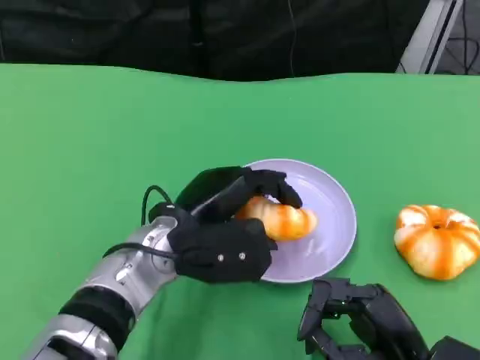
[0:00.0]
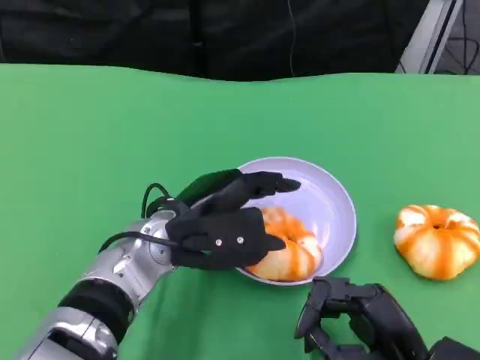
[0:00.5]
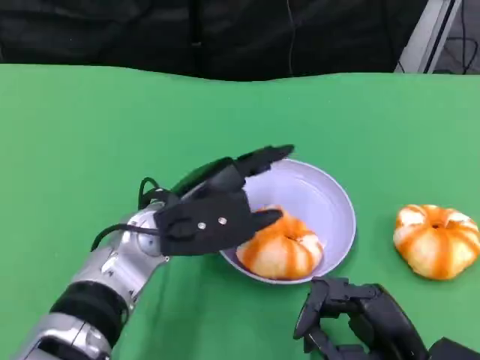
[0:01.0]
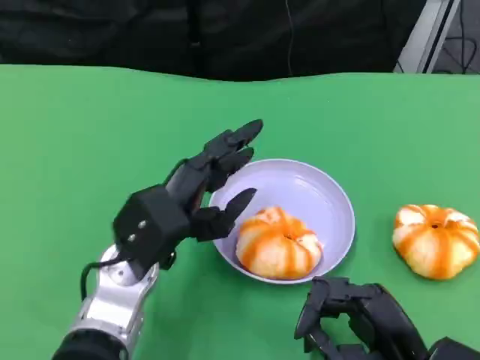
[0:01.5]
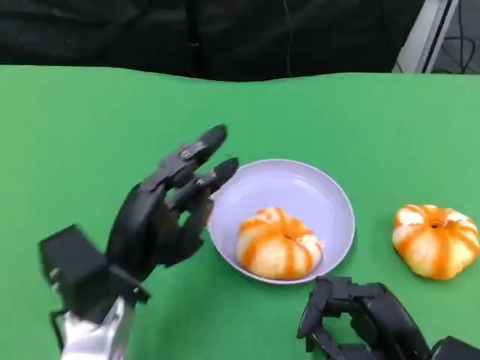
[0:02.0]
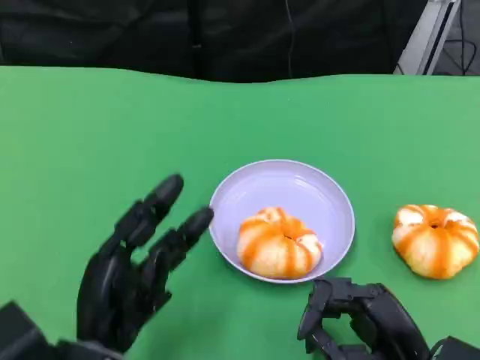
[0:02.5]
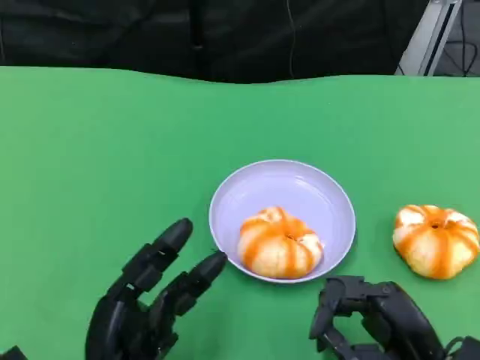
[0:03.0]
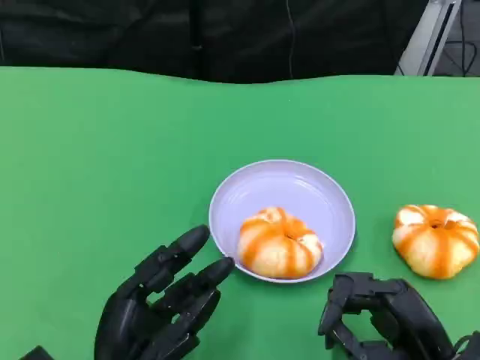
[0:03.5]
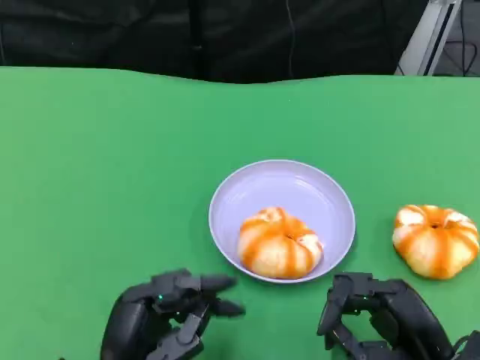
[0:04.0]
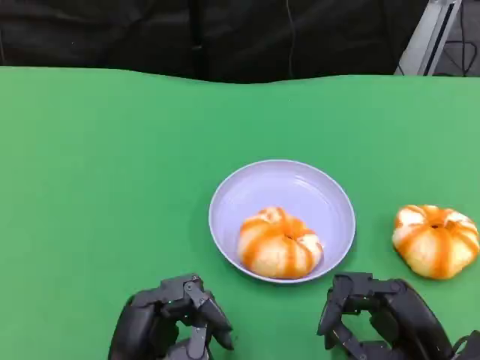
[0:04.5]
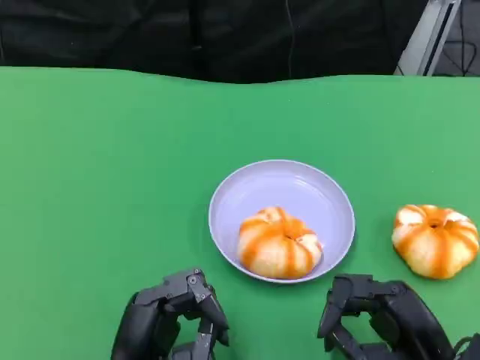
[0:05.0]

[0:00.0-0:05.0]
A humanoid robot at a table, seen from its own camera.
Task of the whole recording: Grasp the bread from the table and place it into the plate.
0:00.0 to 0:02.5: The left hand shifts roughly 15 cm backward and to the left.
0:02.5 to 0:05.0: The hands stay close to where they were, moving slightly.

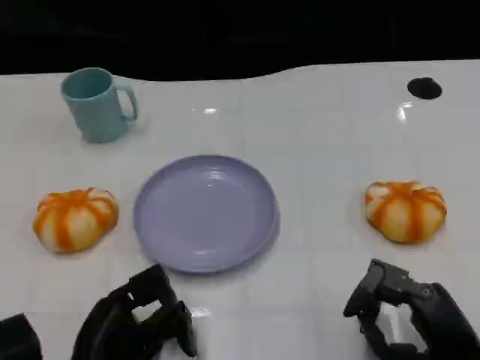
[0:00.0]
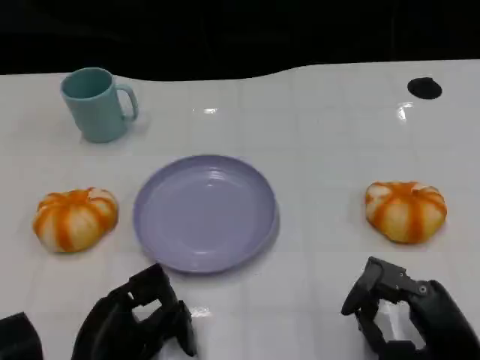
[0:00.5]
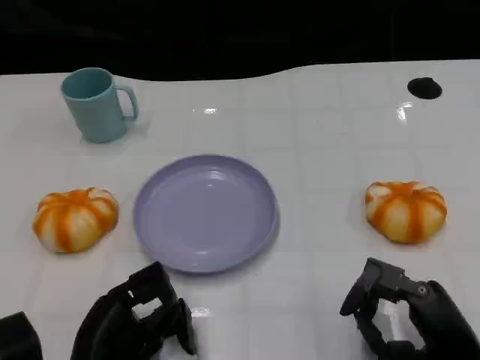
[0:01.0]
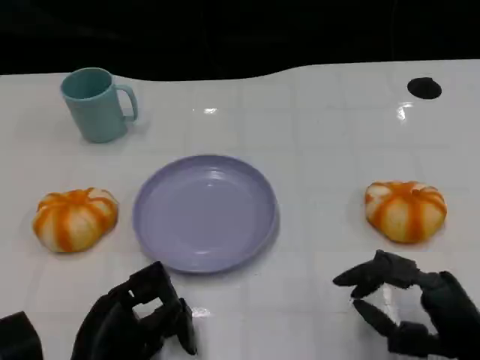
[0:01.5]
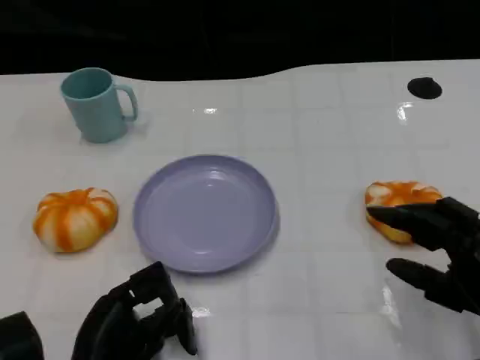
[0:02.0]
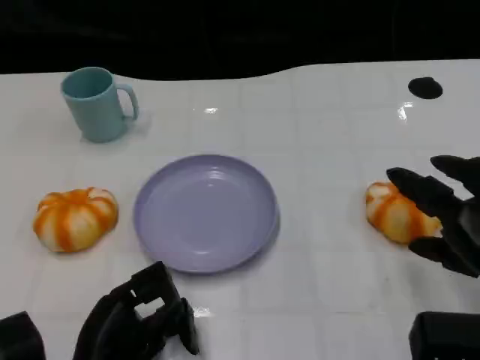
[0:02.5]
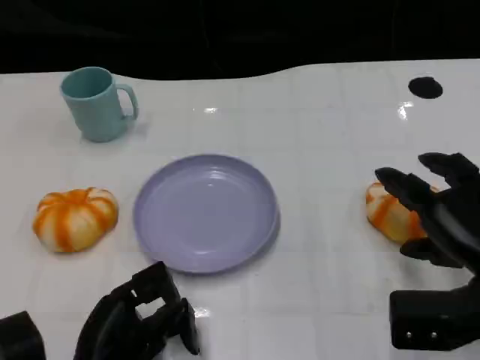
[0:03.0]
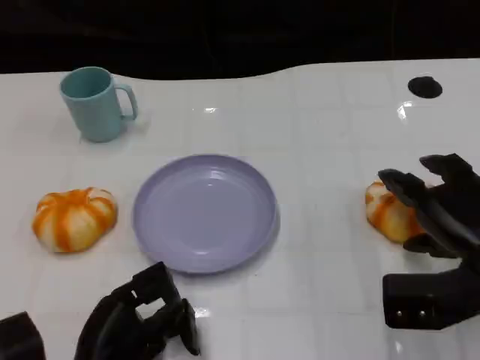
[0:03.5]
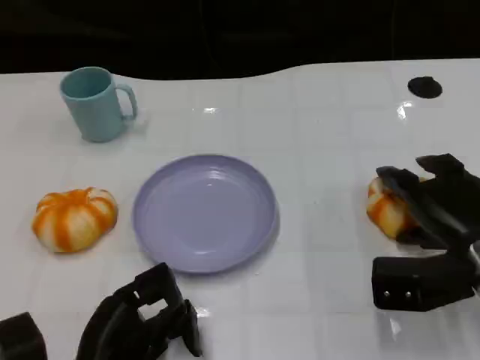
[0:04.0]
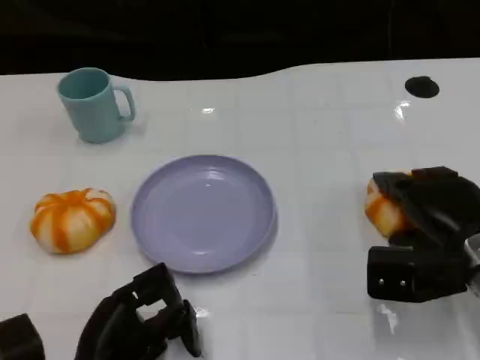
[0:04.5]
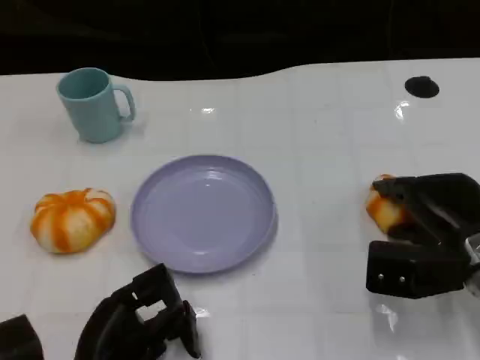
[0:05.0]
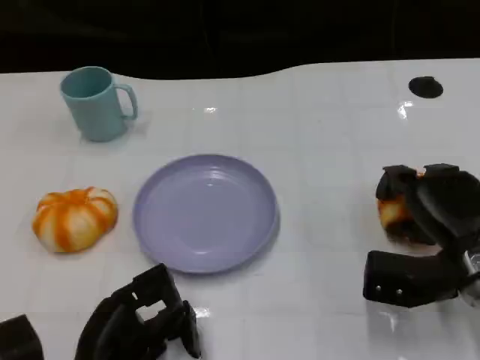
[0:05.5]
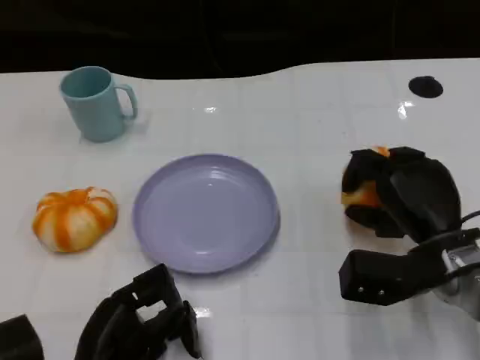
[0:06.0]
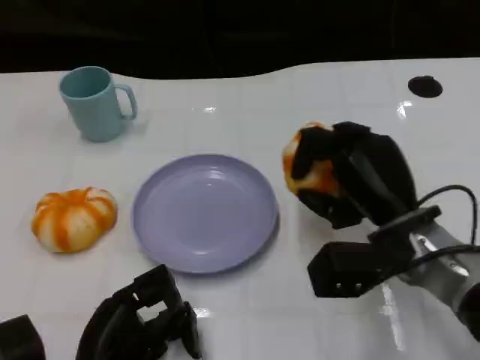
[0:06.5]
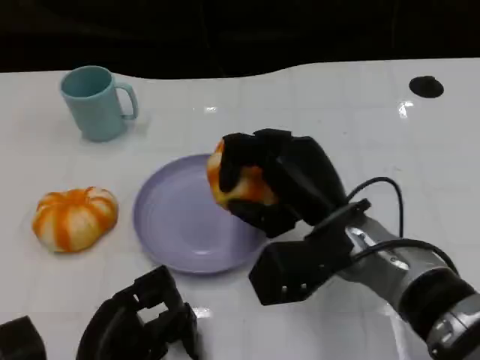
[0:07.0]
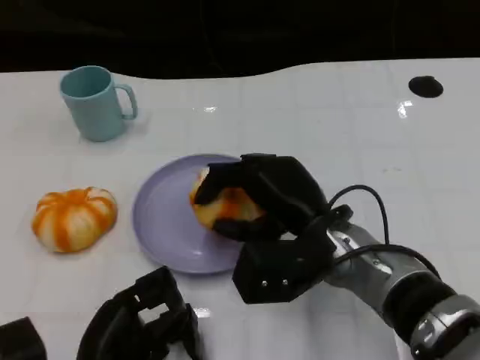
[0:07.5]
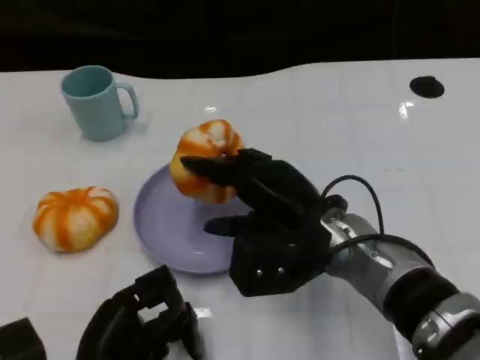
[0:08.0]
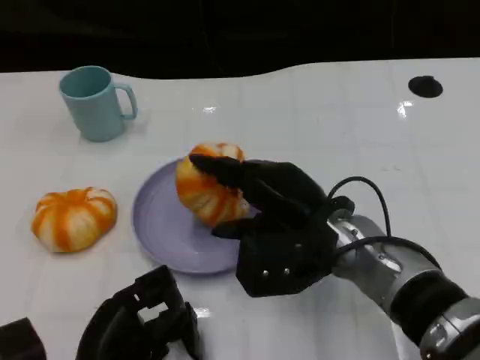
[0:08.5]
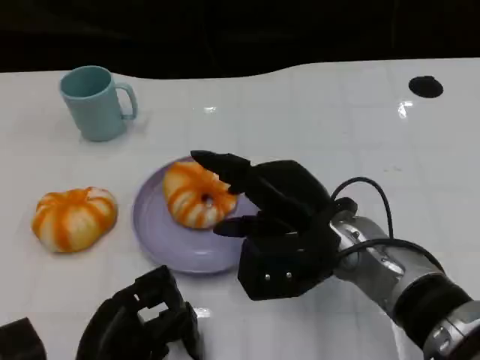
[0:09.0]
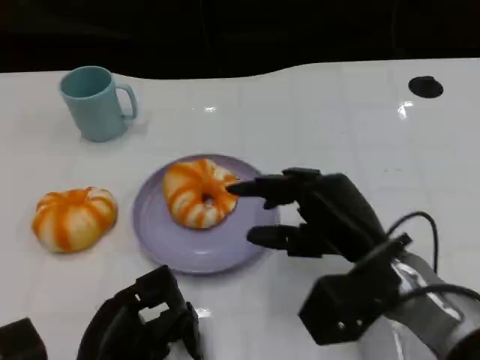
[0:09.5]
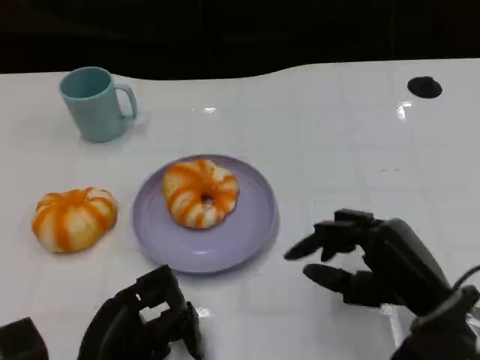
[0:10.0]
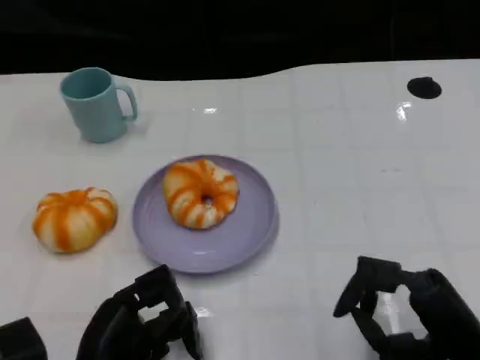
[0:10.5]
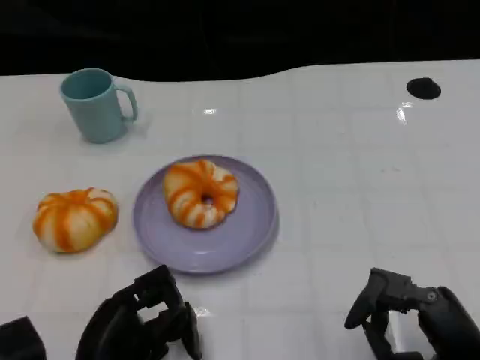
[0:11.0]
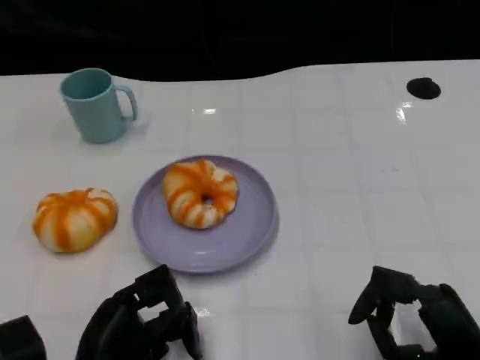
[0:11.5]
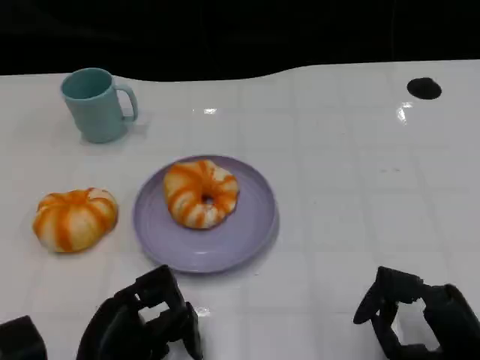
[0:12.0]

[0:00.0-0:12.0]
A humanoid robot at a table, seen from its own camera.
Task of the whole recording: Grasp the bread from the table and place it into the plate.
0:00.0 to 0:02.0: The right hand moves about 5 cm.
0:02.0 to 0:04.0: The right hand is displaced forward by some 10 cm.
0:06.0 to 0:08.0: The right hand travels to the left by some 10 cm.
0:08.0 to 0:10.0: The right hand goes approximately 15 cm to the right and backward.
0:10.0 to 0:12.0: The right hand shifts roughly 5 cm backward.

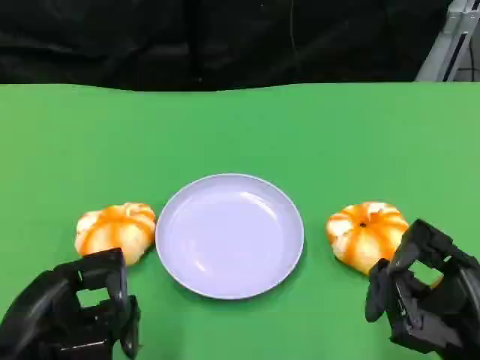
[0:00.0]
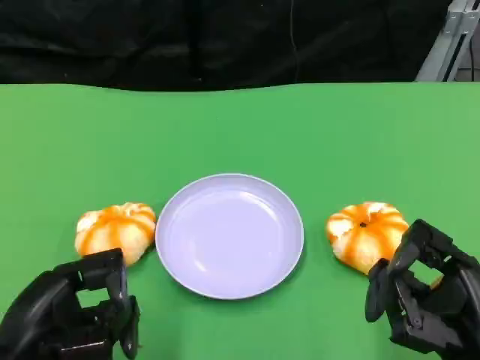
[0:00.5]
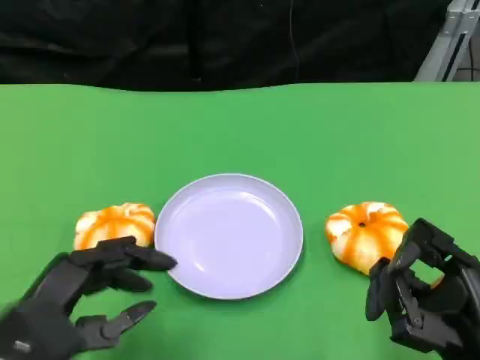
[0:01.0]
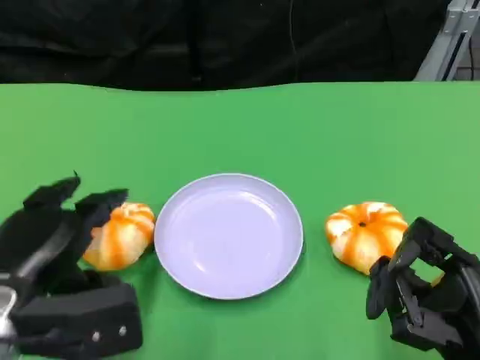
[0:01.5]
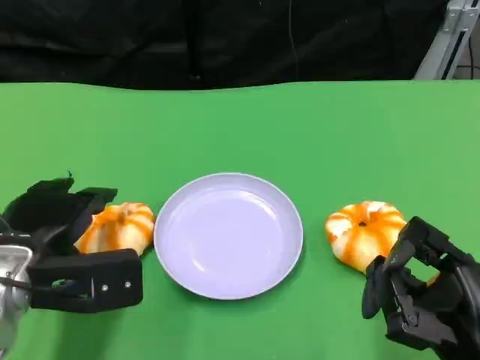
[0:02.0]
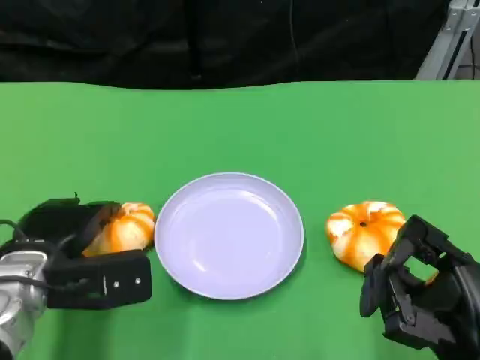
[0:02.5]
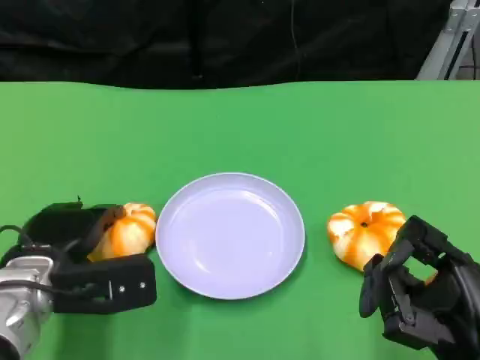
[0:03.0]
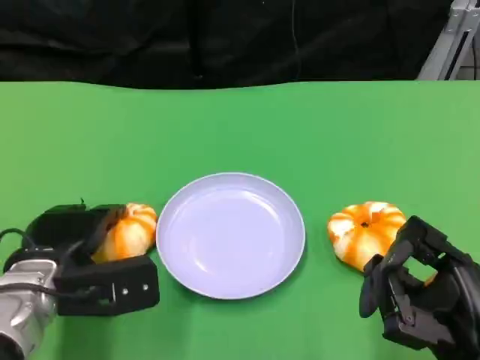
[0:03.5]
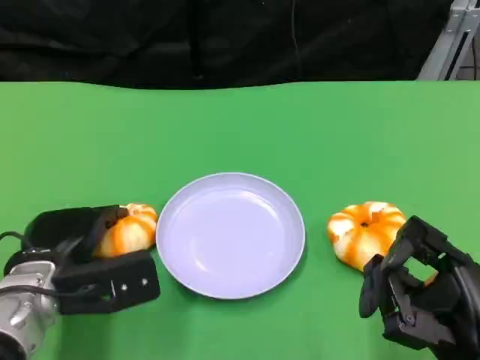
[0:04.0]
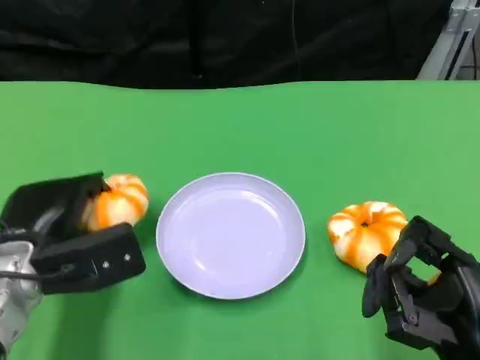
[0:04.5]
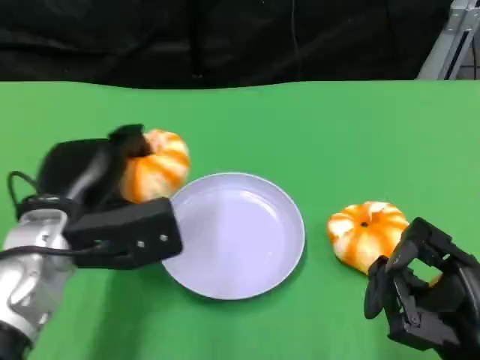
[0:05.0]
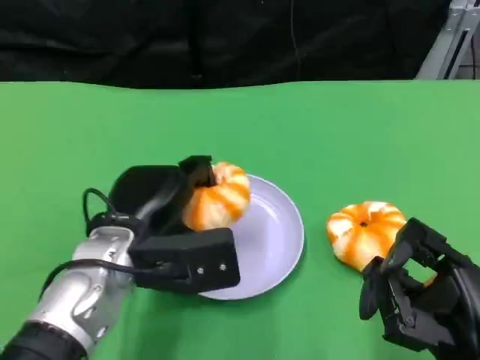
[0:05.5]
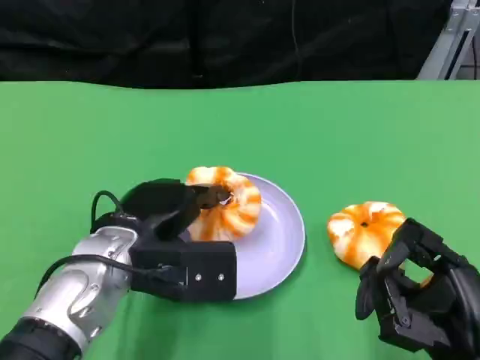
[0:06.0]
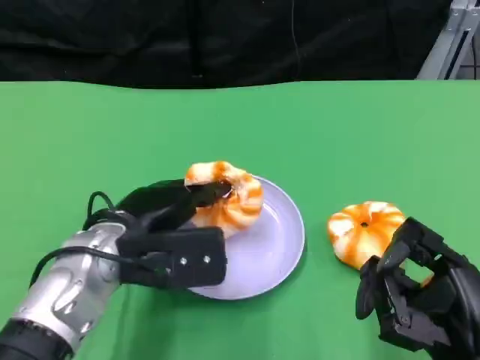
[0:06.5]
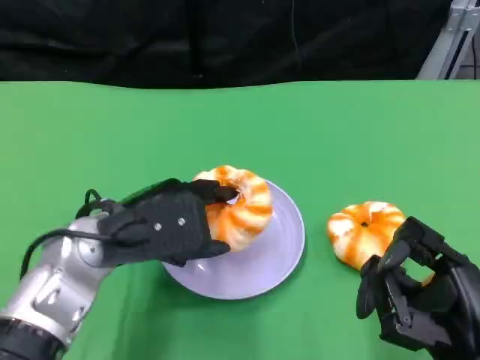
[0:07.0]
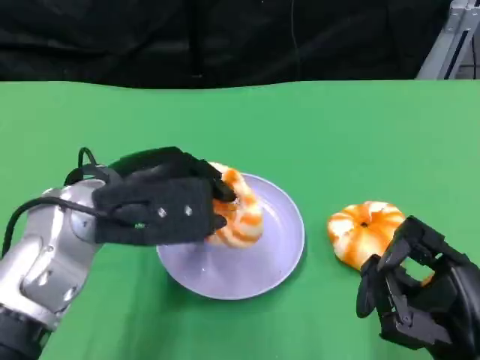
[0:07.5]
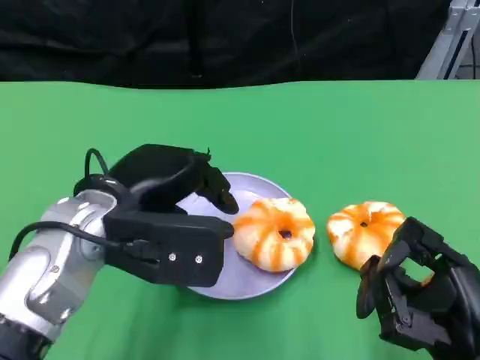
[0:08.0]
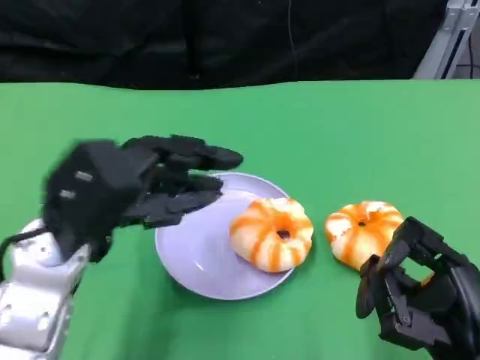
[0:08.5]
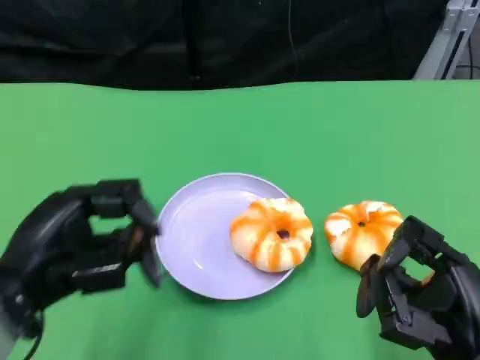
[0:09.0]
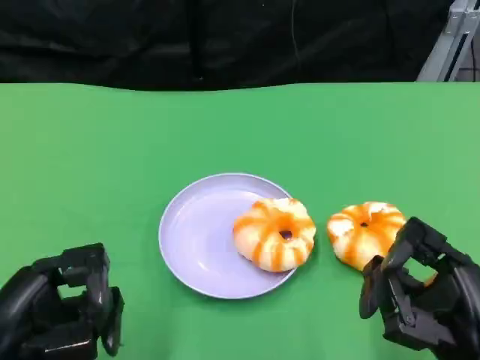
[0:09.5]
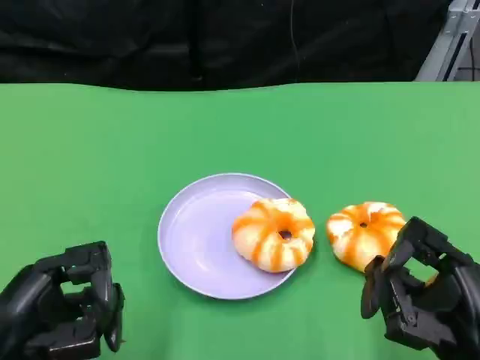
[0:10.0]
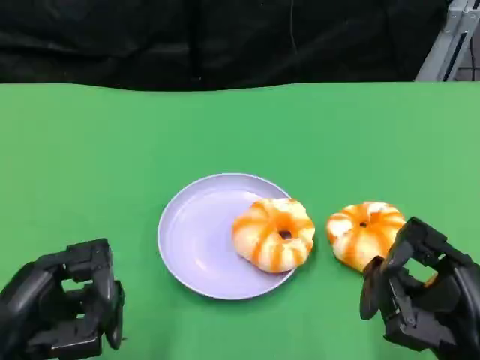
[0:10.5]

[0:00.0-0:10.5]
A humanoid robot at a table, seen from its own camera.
Task of the whole recording: Grasp the bread from the table and place it into the plate.
0:00.0 to 0:02.0: The left hand moves forward, some 10 cm.
0:02.0 to 0:04.0: The hands stay close to where they were, moving slightly.
0:04.0 to 0:06.5: The left hand travels to the right and upward by some 10 cm.
0:06.5 to 0:08.5: The left hand ends up some 5 cm from where it was.
0:08.5 to 0:10.5: The left hand moves backward, to the left and downward, some 15 cm.
